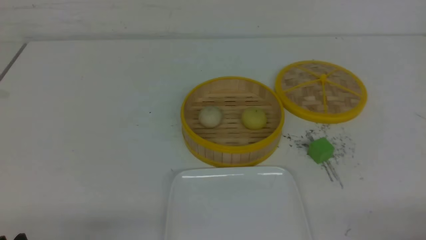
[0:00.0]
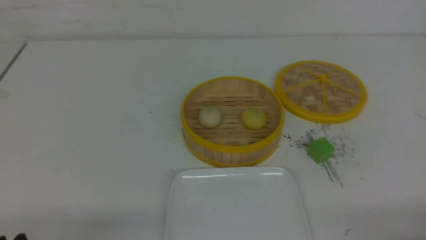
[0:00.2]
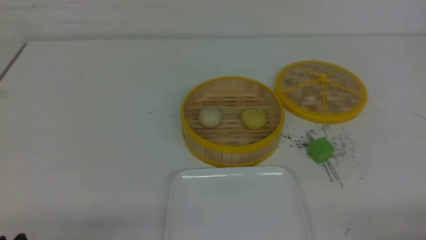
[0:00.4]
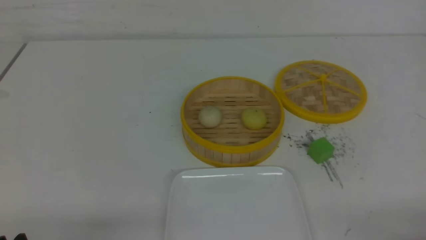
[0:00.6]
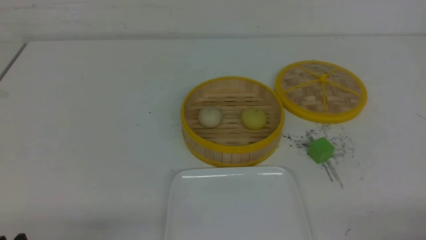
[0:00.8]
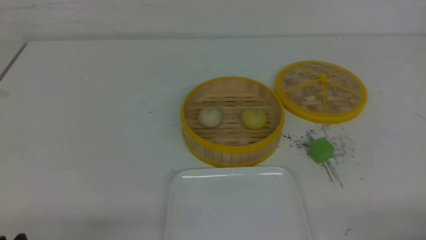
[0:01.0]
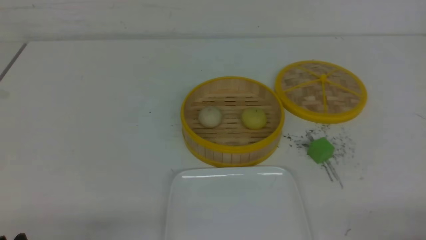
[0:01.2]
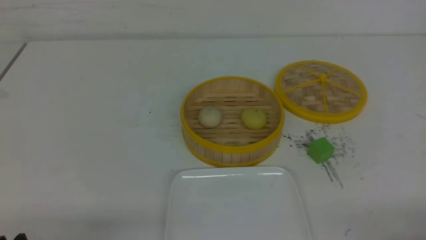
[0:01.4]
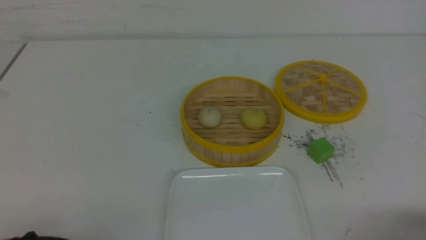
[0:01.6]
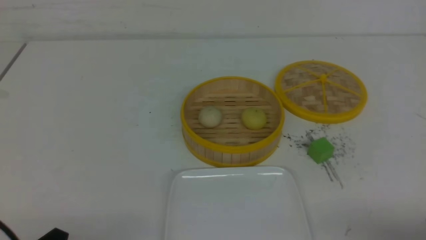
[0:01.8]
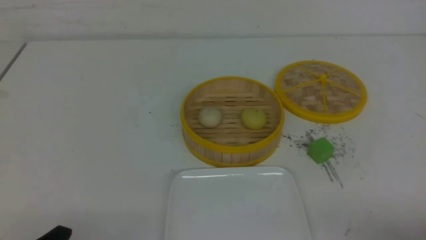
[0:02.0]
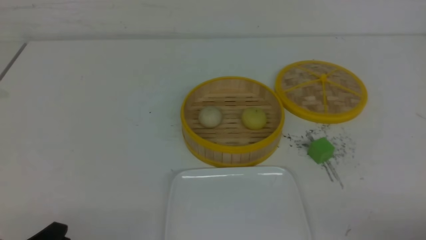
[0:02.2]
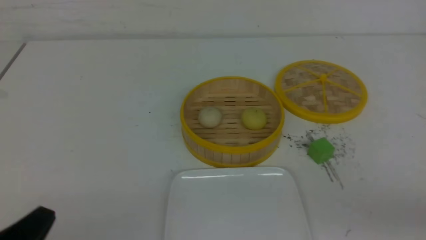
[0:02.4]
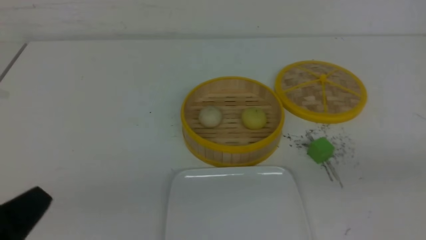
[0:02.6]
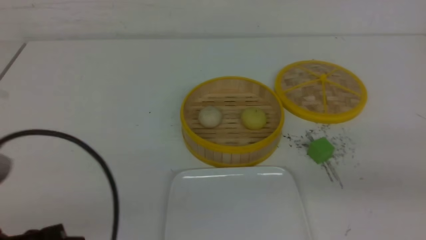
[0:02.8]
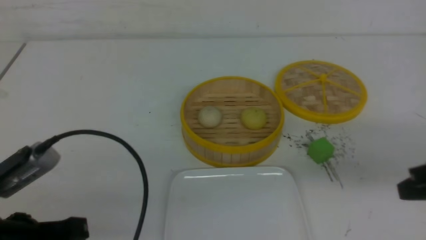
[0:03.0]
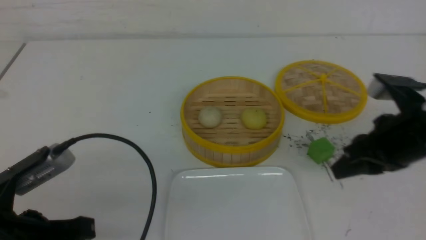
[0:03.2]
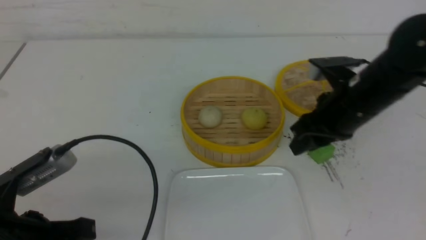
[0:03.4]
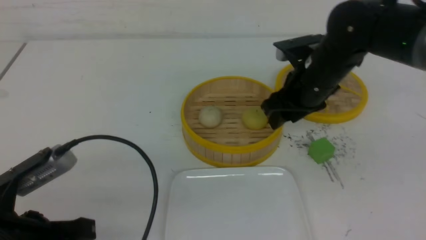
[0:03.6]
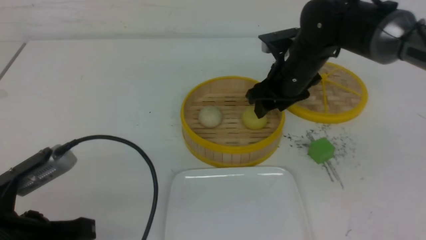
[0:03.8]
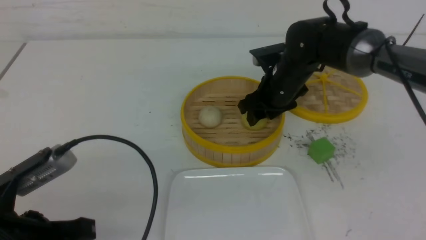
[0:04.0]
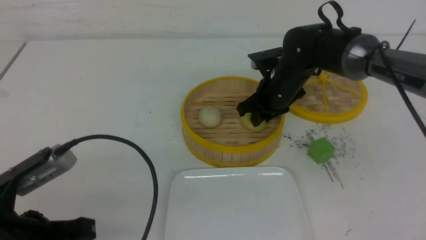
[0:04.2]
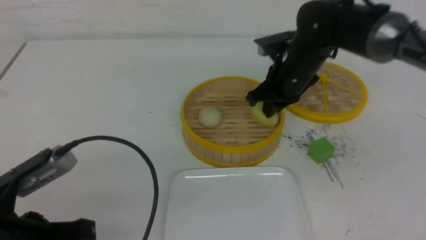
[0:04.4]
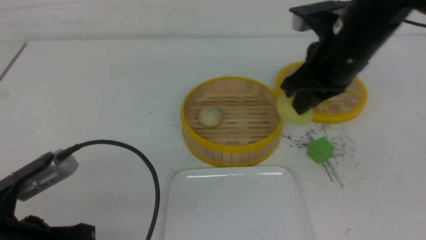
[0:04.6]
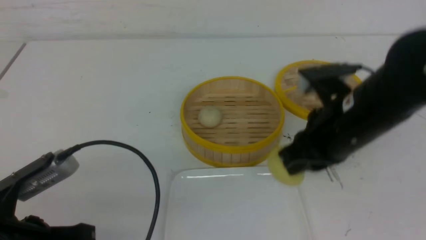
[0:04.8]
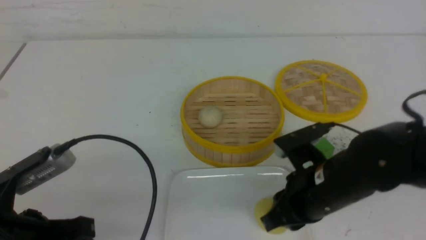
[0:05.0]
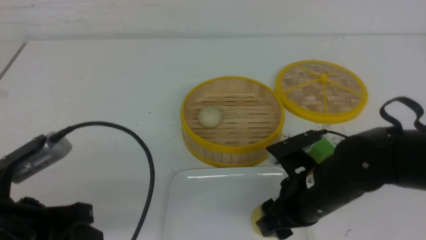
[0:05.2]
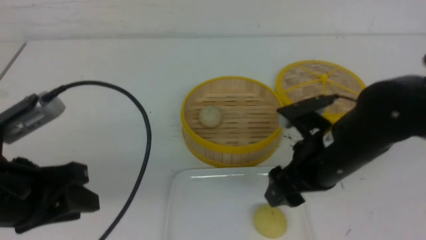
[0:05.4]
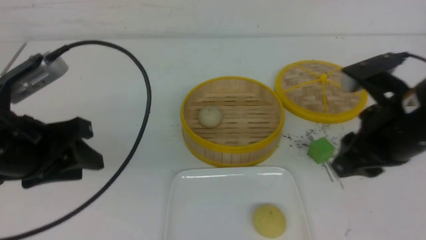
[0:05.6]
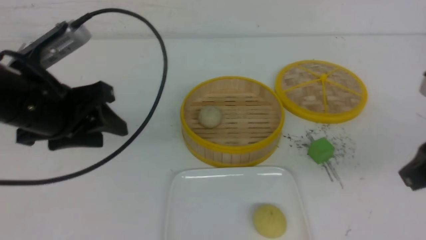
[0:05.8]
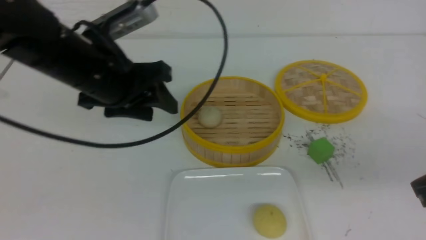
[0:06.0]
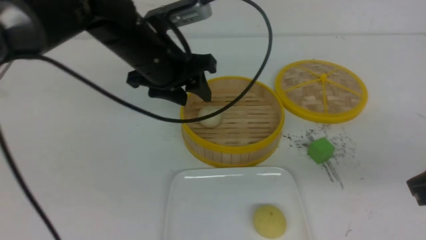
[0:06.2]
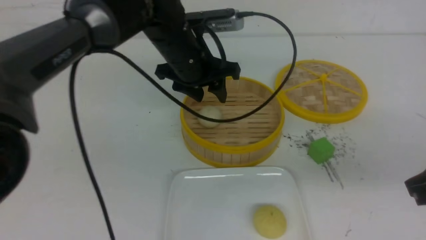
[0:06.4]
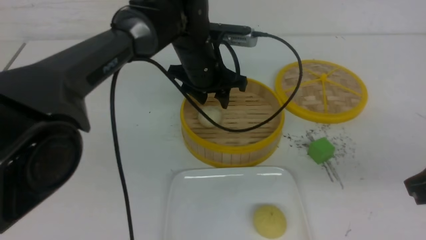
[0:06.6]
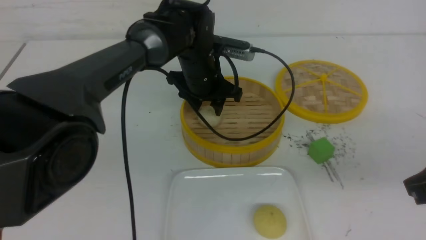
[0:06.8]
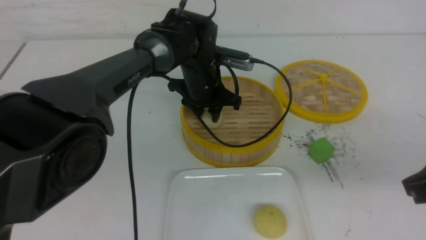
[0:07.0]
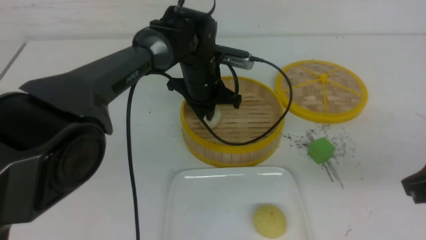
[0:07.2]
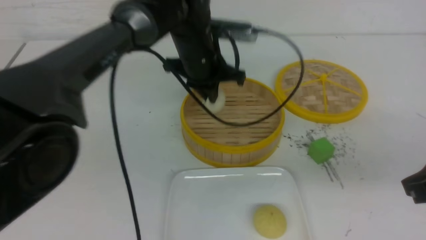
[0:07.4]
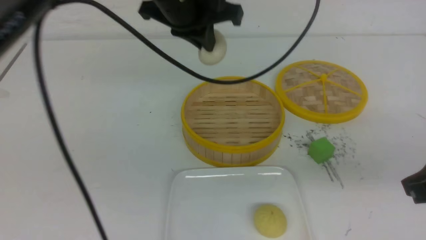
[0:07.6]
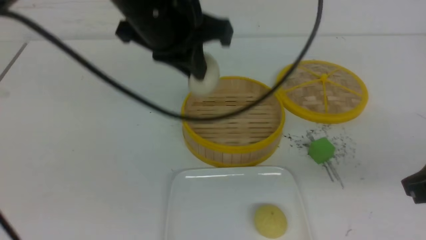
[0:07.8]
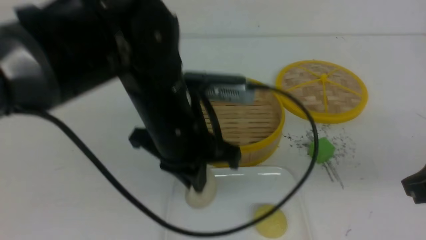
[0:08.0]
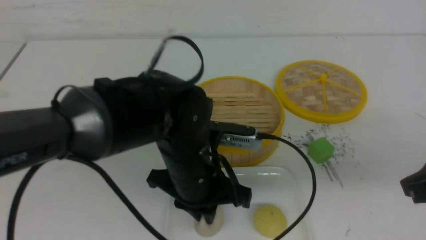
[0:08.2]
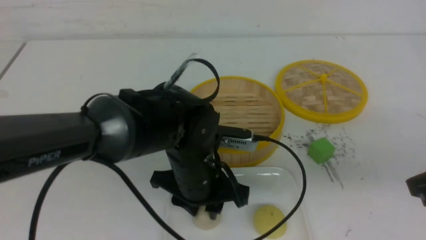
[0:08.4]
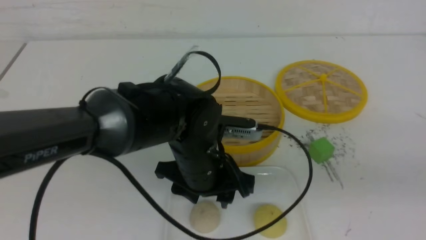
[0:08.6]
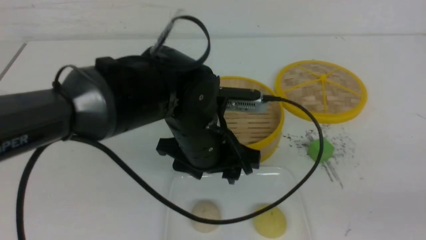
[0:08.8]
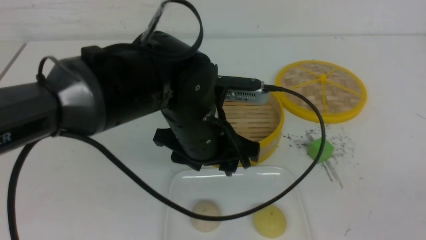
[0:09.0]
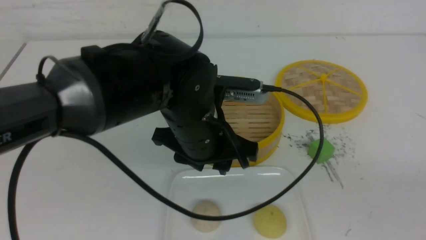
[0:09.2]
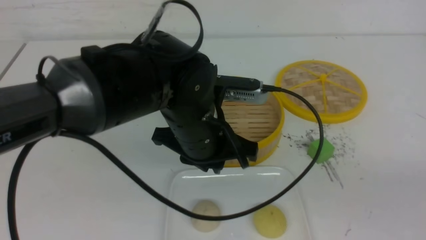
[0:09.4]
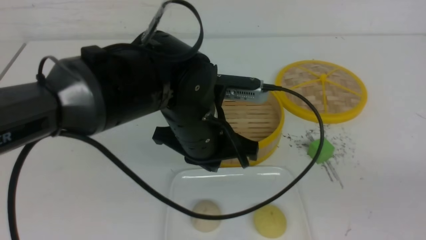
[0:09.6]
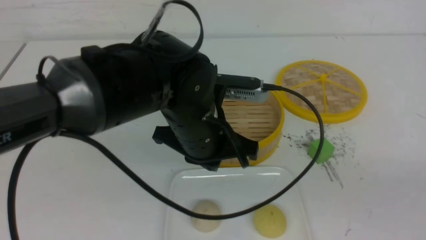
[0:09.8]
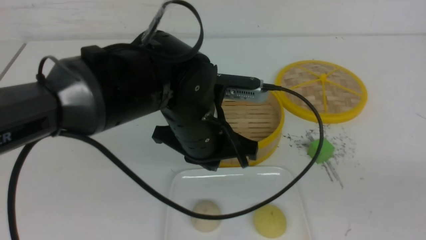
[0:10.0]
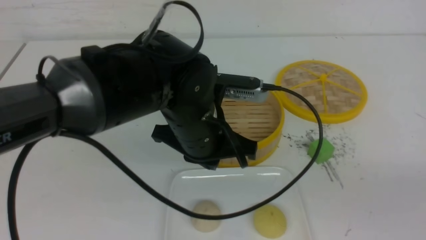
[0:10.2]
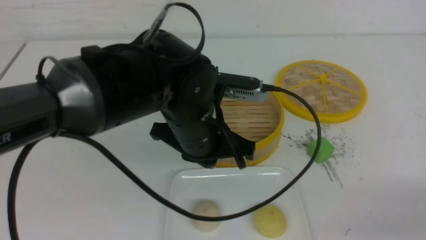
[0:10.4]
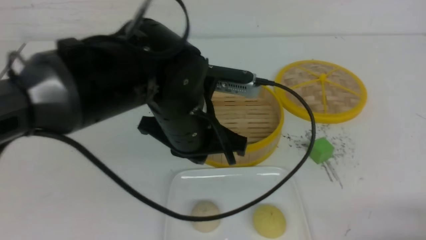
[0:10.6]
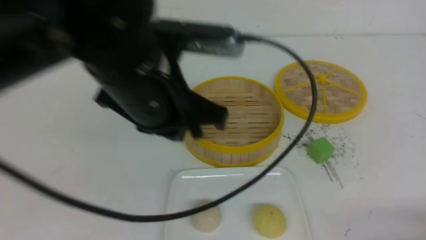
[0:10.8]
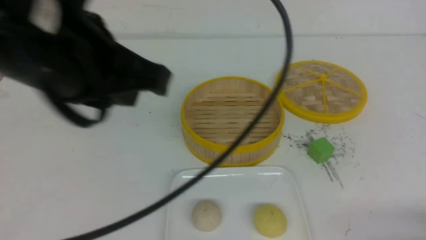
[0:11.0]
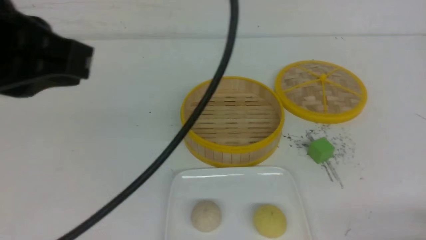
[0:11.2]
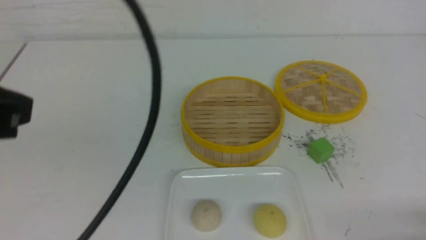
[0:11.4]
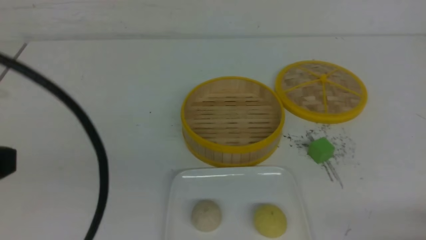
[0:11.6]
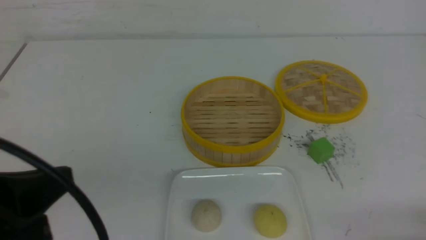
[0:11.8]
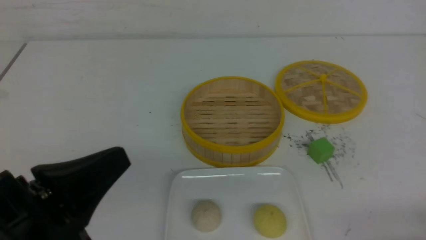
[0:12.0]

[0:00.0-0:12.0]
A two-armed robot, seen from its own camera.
Step, 0.0 to 4.2 s: use the right arm to grab the steamed stuffed bun that is closest to it.
Step, 4.4 to 5.2 s: use the right arm to put the steamed stuffed bun into the plate.
Step, 5.4 to 7.2 s: use the left arm to grab the steamed stuffed bun that is closest to it.
Step, 7.4 to 8.6 s: use the left arm to put the steamed stuffed bun into the plate.
1.6 to 3.0 s: The right gripper shifts some 20 cm forward and upward, and closes its fingers. The left gripper is displaced upward and forward by approximately 10 cm, and closes up.
3.0 to 4.4 s: The right gripper is displaced forward and to the left by some 25 cm, and opens, then closes once more; the left gripper opens up.
4.4 to 6.0 s: The right gripper moves backward and to the right, about 25 cm, and opens and closes again, while the left gripper heads forward, upward and to the right, covering about 20 cm, and opens its fingers.
6.0 to 7.6 s: The left gripper goes approximately 10 cm to the right, reaches roughly 10 cm downward, then returns, and closes up.
7.6 to 9.0 s: The left gripper is displaced downward and backward by about 15 cm, and opens, while the right gripper travels backward by about 15 cm.
9.0 to 10.4 s: The left gripper closes. Meanwhile the right gripper heads downward, covering some 10 cm.
10.4 to 12.0 s: The left gripper travels backward and to the left by approximately 25 cm; the right gripper travels downward by about 5 cm.

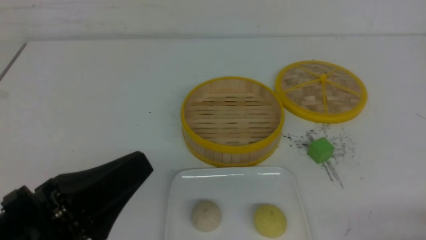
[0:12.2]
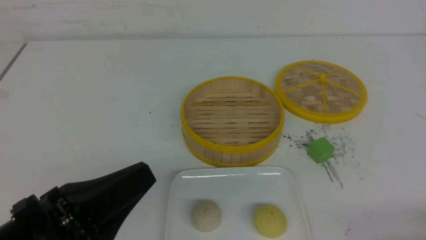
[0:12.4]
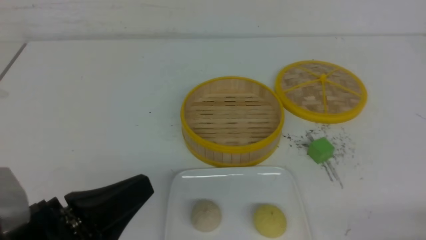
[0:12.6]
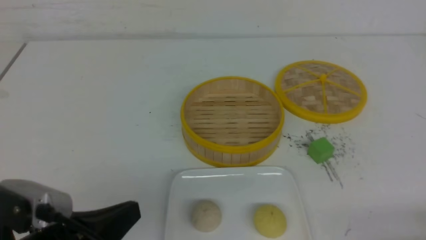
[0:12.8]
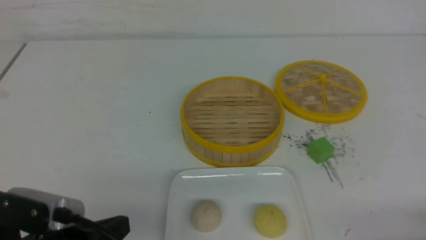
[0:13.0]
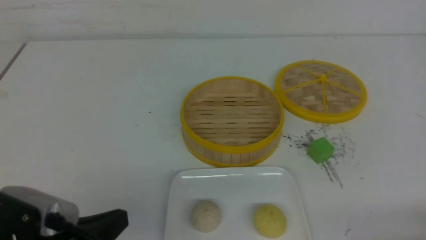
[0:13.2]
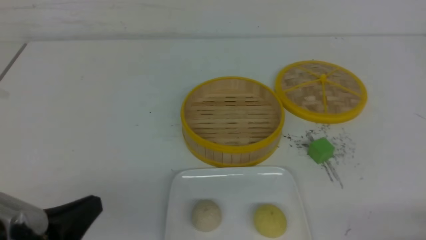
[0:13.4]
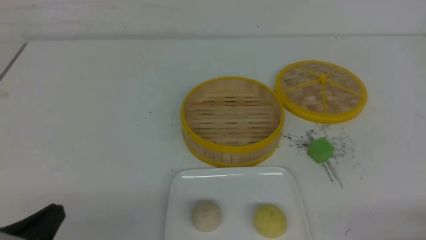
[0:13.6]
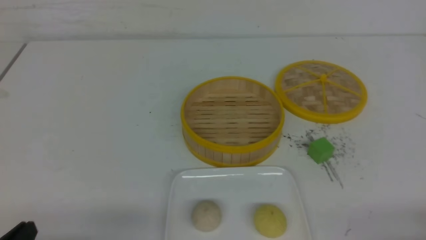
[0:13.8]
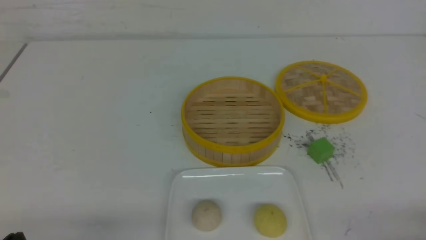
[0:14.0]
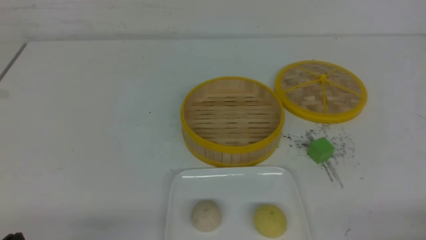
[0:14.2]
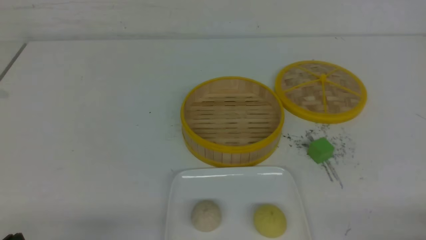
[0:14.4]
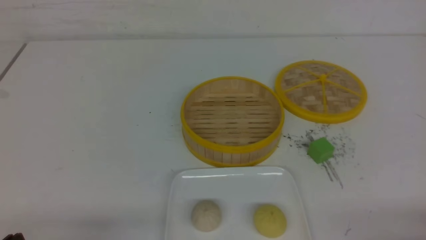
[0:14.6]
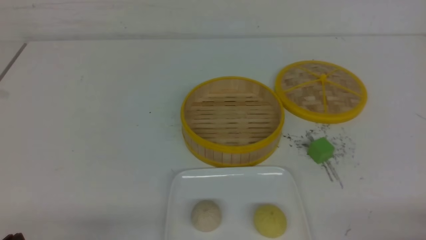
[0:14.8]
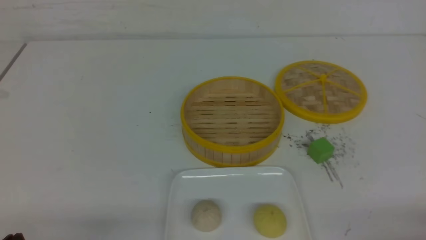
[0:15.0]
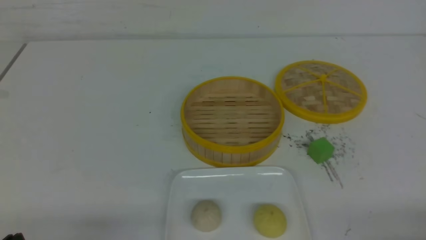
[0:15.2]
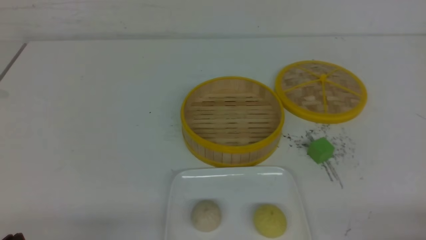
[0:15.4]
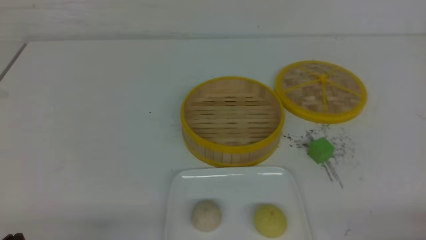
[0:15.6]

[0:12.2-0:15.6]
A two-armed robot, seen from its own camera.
12.2 to 13.8 s: The left gripper heads downward and to the left, covering some 15 cm.

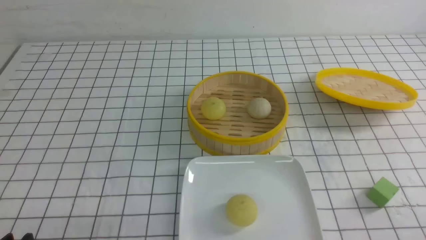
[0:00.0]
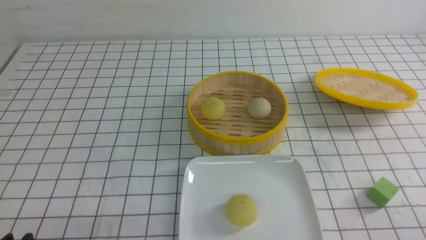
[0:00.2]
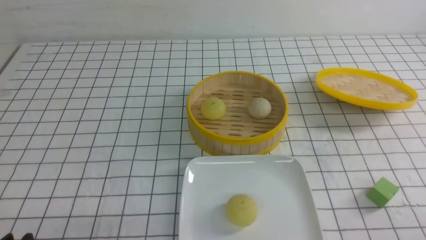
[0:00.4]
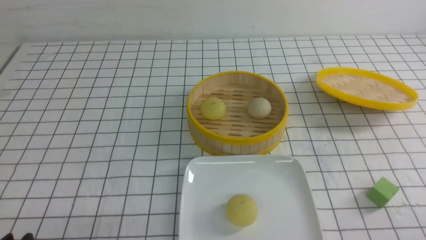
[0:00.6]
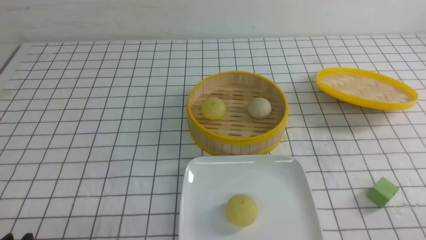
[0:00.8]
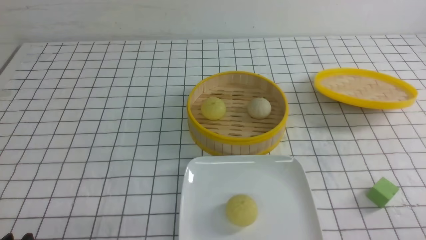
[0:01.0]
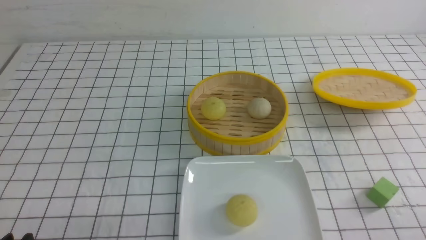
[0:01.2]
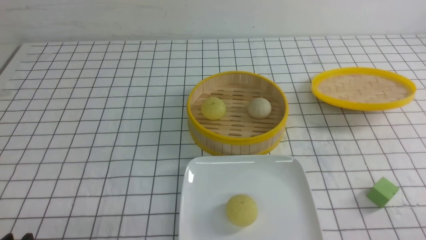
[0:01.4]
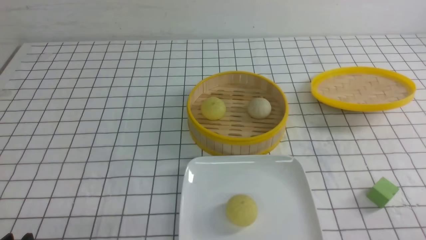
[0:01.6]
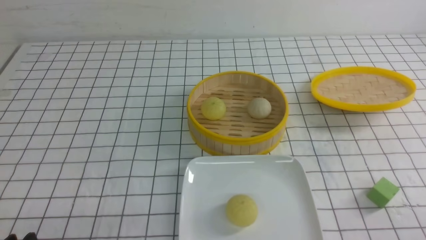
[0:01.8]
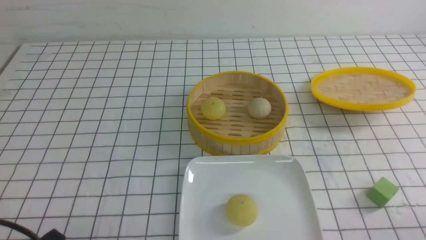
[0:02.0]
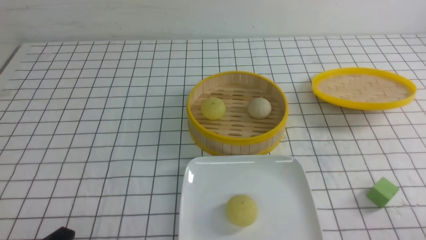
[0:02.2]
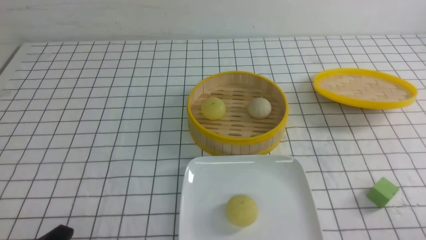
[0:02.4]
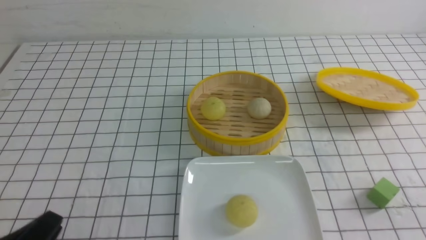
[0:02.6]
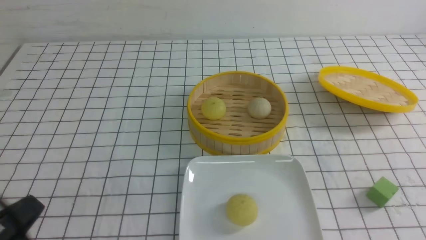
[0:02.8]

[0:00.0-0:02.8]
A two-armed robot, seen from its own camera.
0.0 to 1.4 s: The two grippers keep their place.
1.4 to 2.8 s: The left gripper shifts some 10 cm upward, and closes its fingers, while the right gripper moves upward, some 10 cm, and closes.
